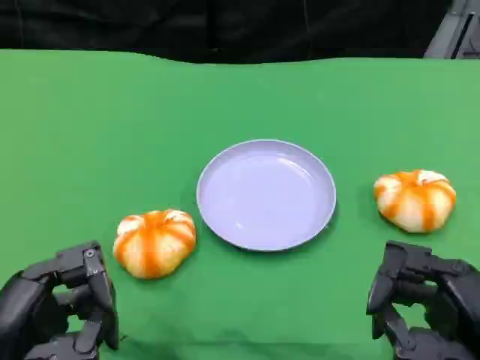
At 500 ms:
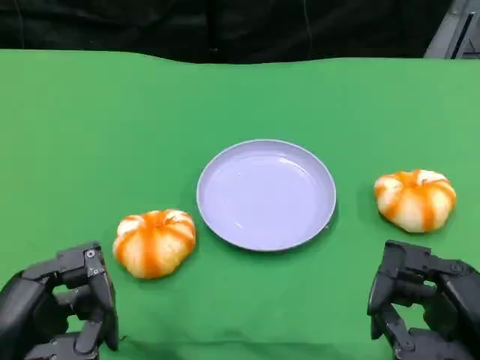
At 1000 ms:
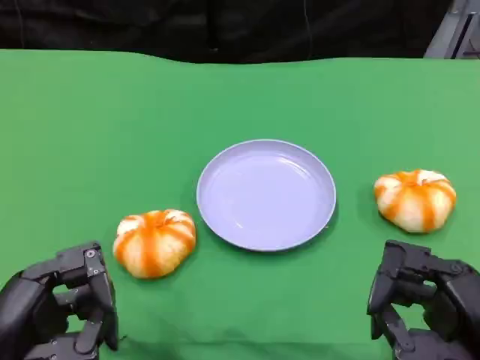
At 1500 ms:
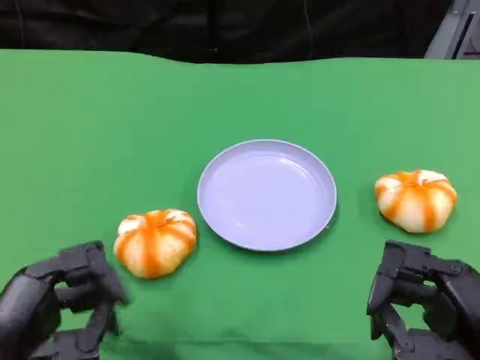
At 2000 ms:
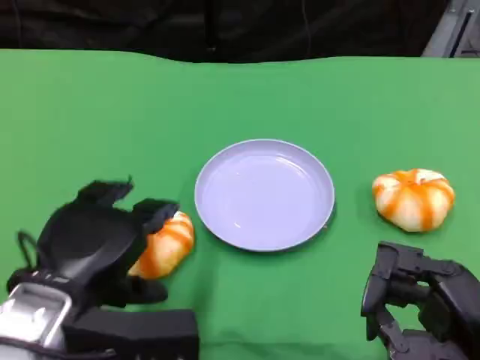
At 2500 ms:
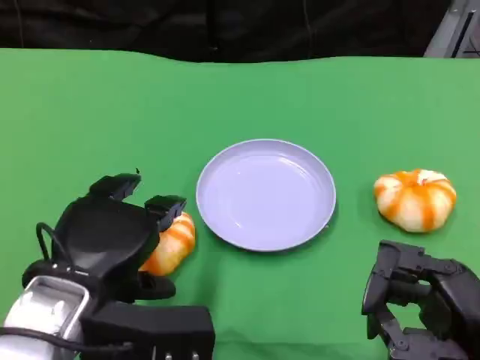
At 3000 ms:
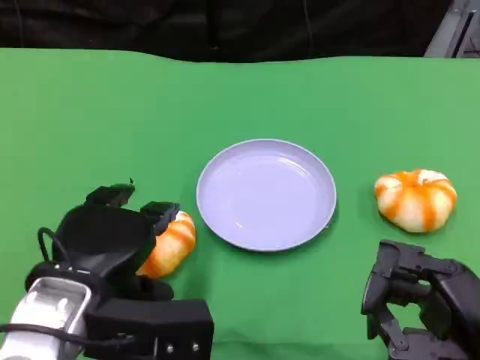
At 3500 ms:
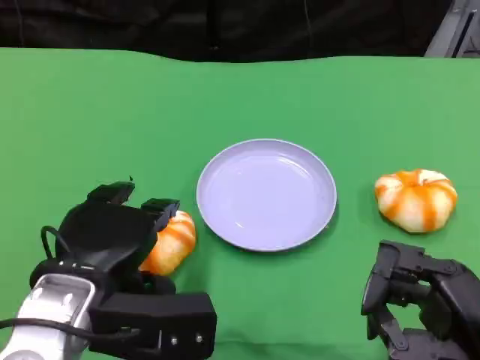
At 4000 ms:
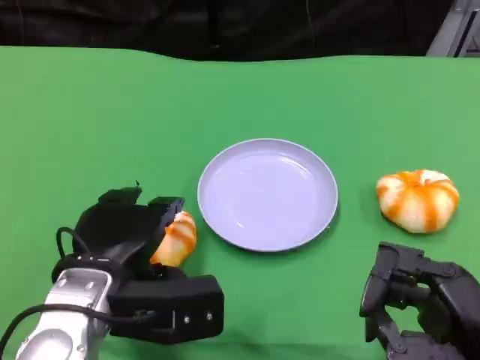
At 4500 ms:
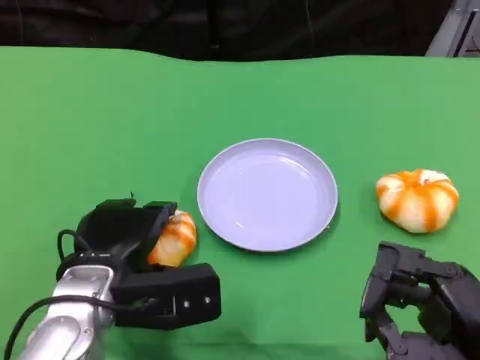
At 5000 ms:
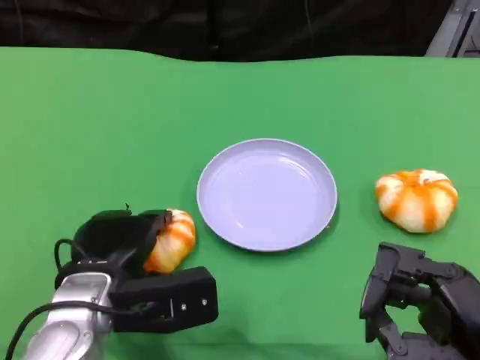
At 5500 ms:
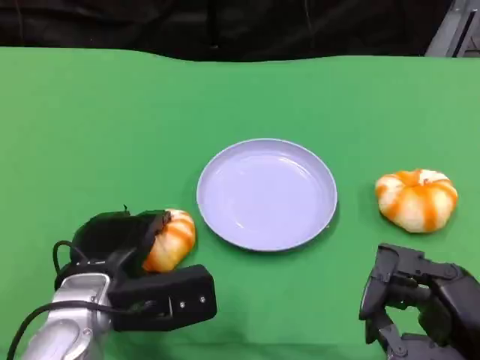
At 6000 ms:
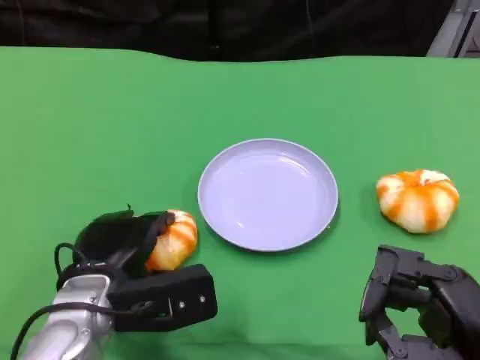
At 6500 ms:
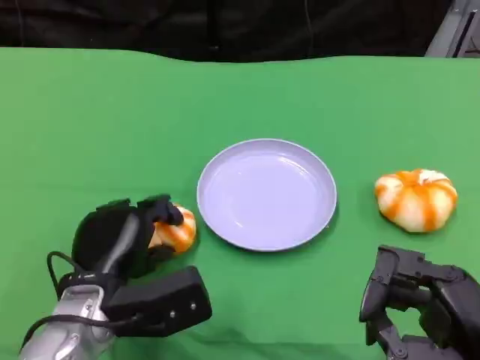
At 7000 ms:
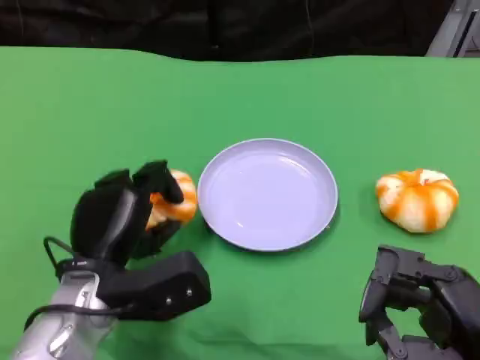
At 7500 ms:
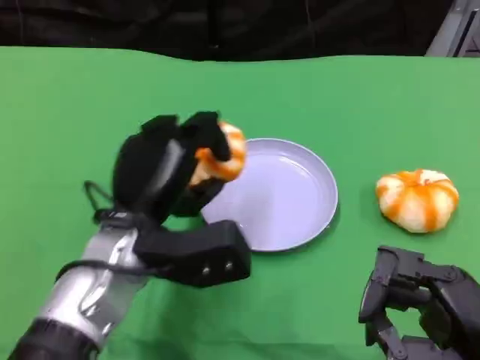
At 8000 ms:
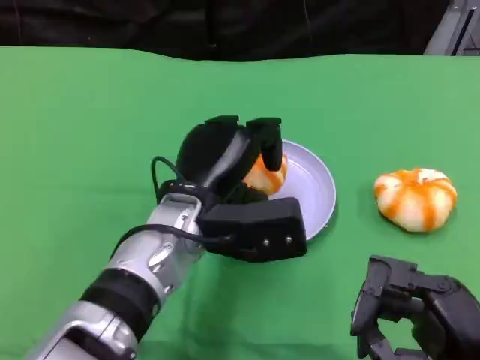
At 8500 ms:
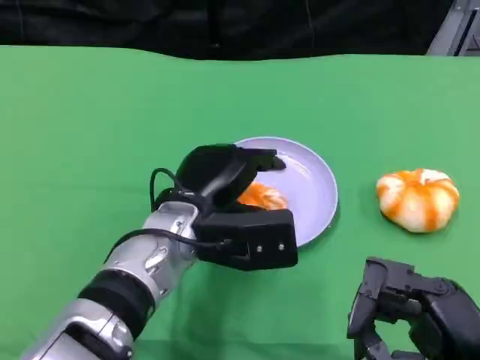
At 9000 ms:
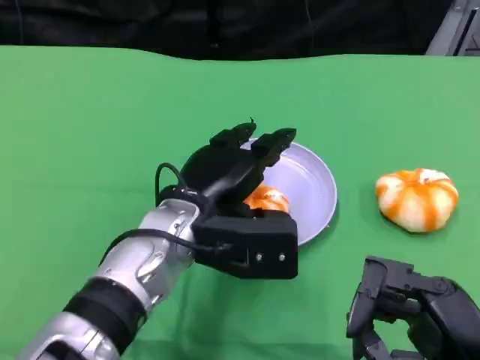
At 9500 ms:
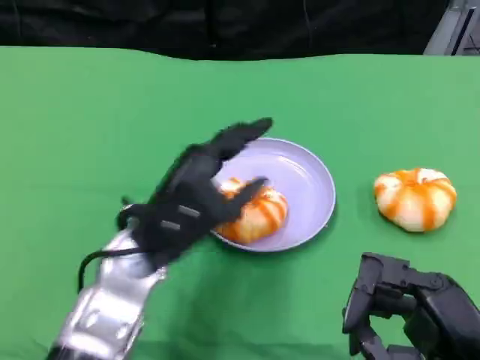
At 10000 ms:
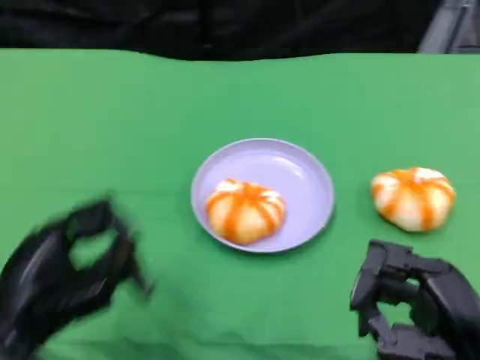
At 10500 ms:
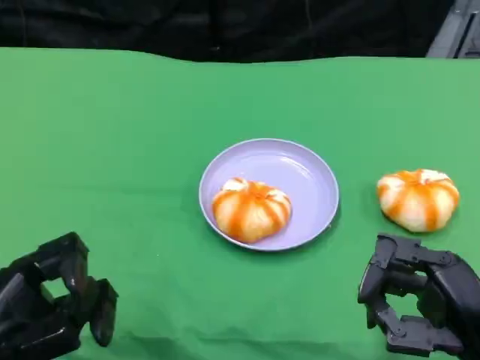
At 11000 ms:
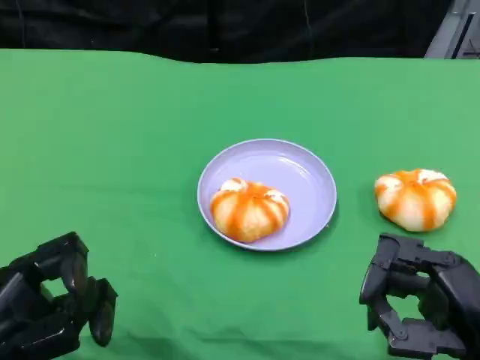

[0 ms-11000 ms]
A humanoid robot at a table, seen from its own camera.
Task of the whole recording: Grasp the bread from the table and place it into the plate.
0 ms to 2000 ms: The left hand goes approximately 10 cm to the right and forward.
2000 ms to 3500 ms: The hands stay close to where they were, moving slightly.
3500 ms to 5500 ms: The left hand is displaced downward by roughly 5 cm.
5500 ms to 7500 ms: The left hand goes approximately 5 cm upward.
9000 ms to 11000 ms: The left hand heads to the left and backward, covering approximately 25 cm.
